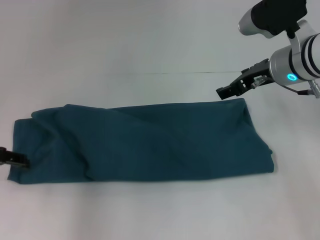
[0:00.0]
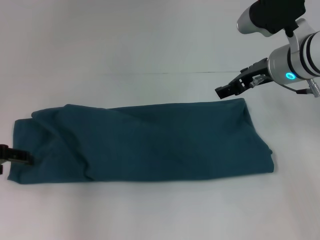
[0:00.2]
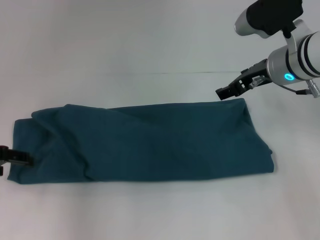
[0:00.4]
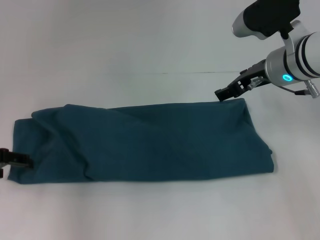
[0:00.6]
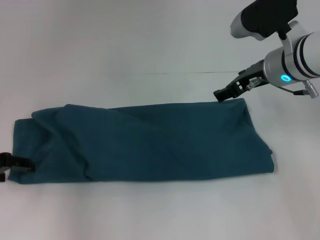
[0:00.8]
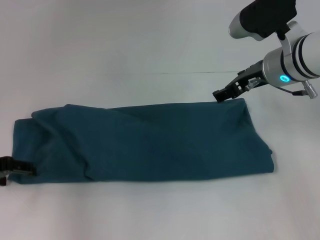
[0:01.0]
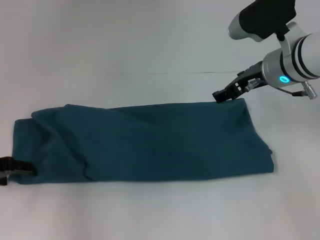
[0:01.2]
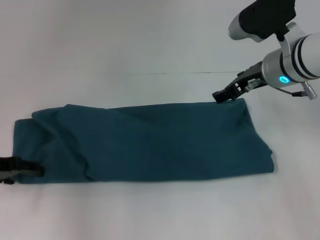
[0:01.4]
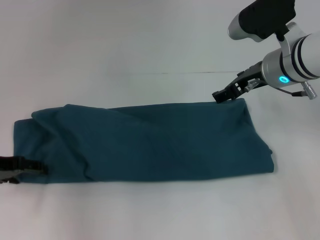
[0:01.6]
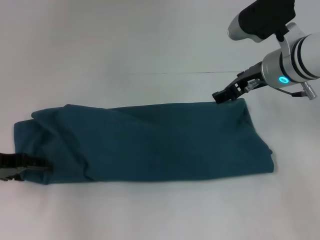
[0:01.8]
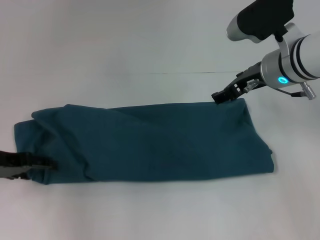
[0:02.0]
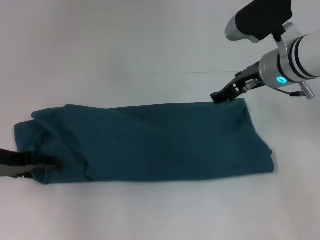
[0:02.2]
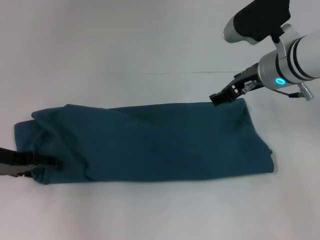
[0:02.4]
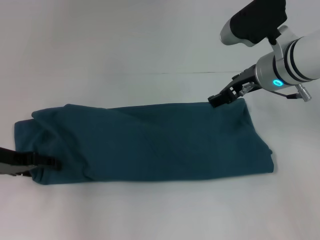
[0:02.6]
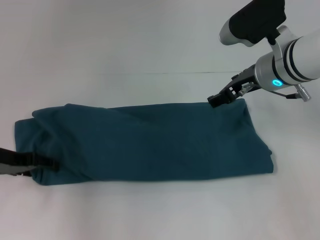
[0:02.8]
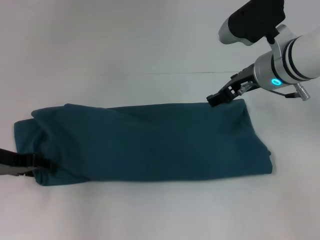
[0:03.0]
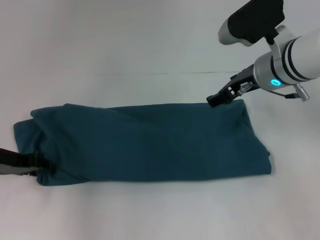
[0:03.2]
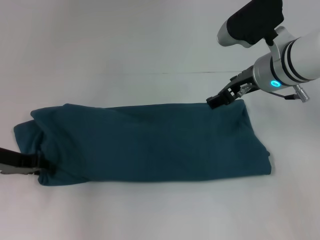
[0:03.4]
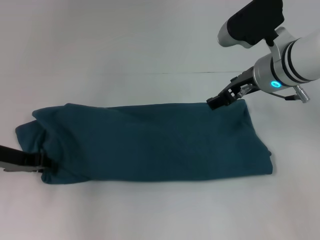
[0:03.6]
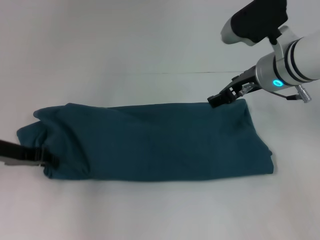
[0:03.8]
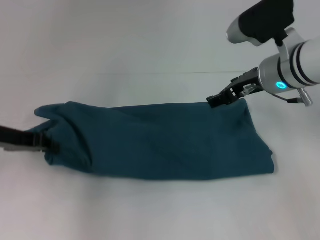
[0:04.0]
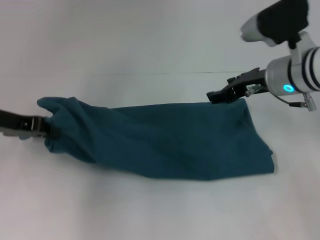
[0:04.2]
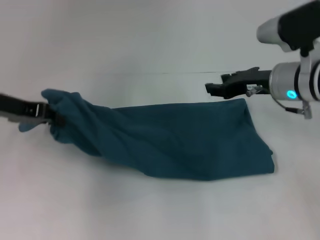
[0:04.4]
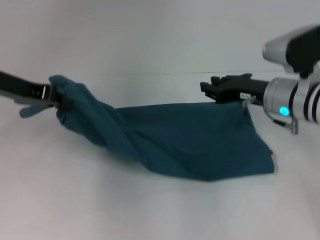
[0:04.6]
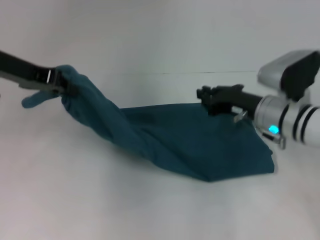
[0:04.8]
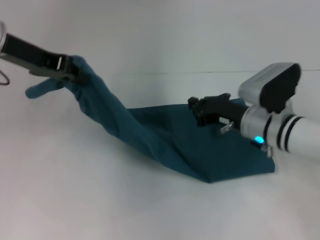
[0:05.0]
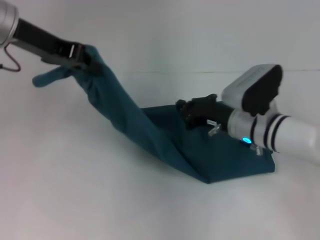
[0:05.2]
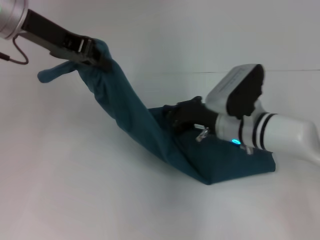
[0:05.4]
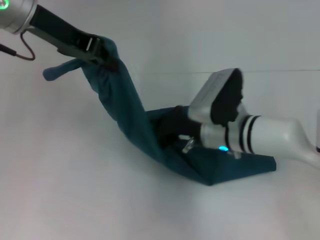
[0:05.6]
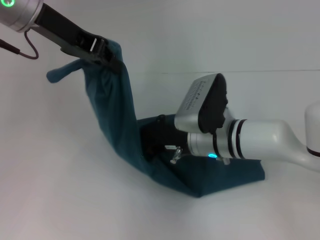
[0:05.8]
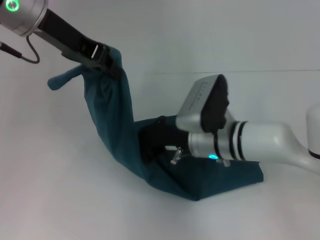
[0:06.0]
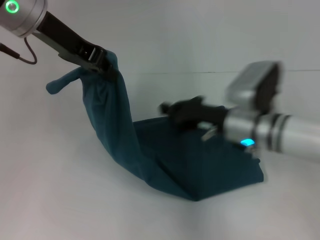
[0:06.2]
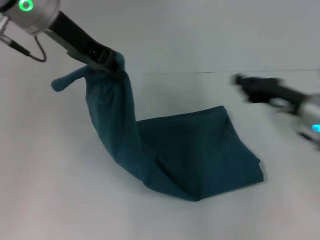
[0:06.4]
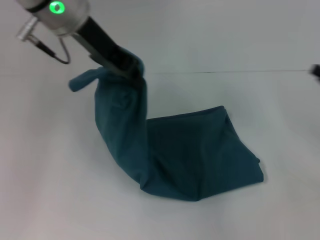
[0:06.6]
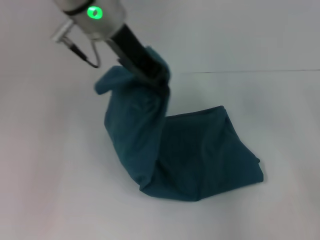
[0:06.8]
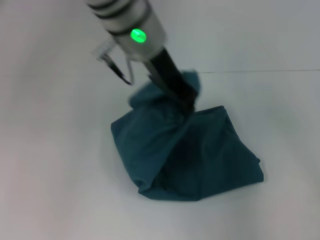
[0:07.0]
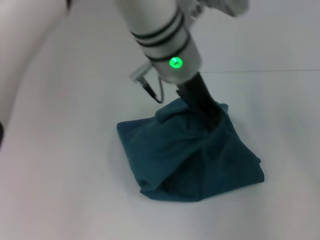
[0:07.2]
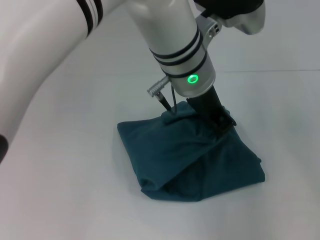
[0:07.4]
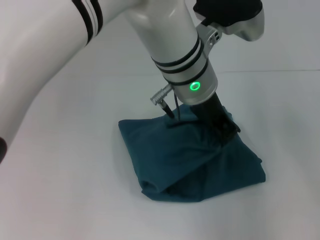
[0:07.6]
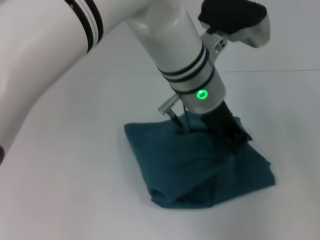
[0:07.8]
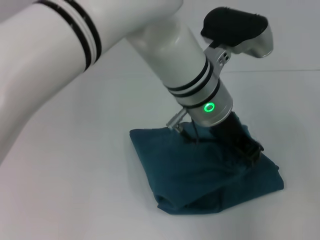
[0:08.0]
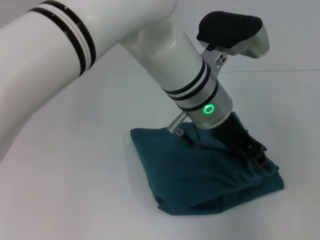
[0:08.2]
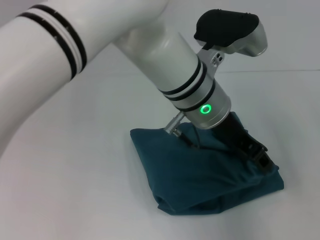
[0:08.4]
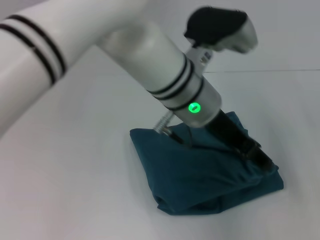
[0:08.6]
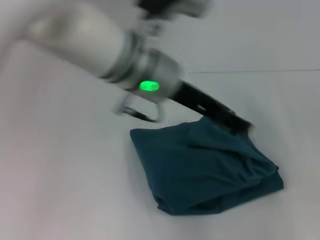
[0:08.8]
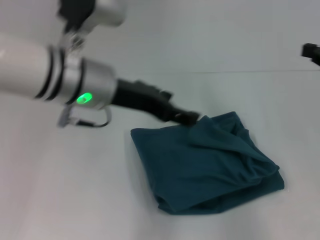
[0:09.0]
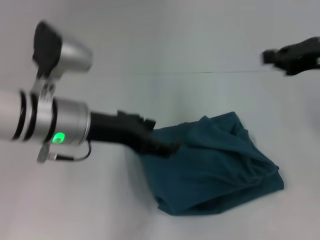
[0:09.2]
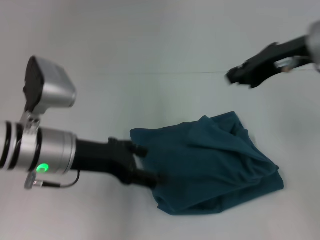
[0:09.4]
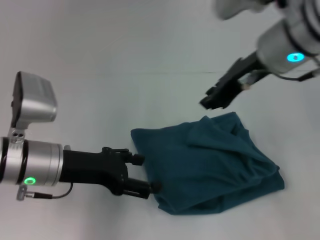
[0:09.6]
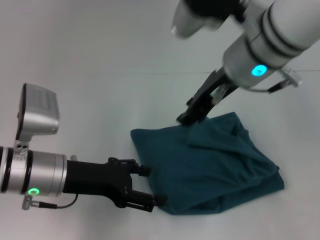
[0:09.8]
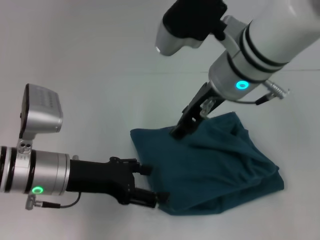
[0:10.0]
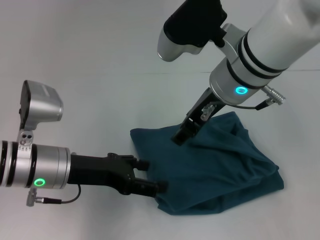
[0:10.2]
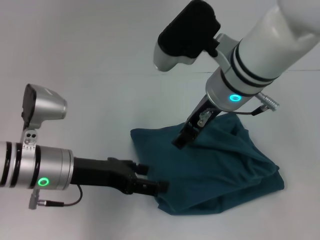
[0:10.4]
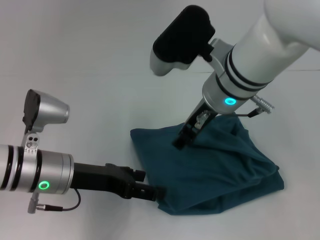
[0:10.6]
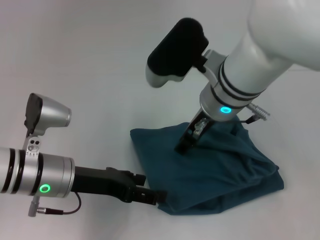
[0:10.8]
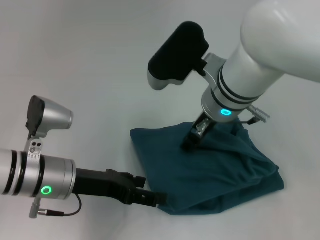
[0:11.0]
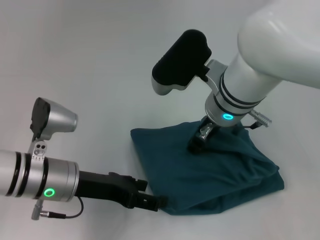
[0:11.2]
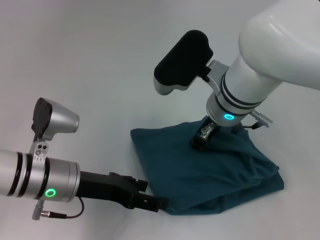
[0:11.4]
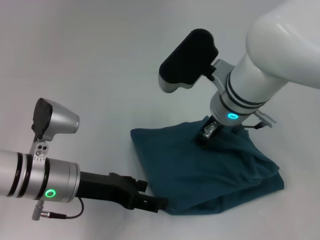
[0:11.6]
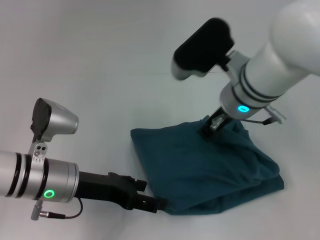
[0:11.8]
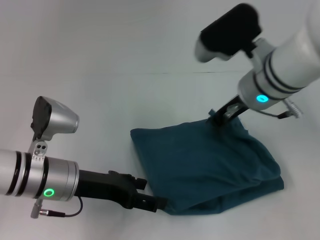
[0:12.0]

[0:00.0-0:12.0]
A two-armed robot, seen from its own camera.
Step, 0:00.0 to 0:06.0: Press the middle of the clothes with your right hand.
Step, 0:06.2 to 0:08.4: Fold the clothes to the left.
0:00.0 to 0:03.0: The grippers make only small movements.
0:03.0 to 0:04.4: The left gripper goes some 10 cm upward, and closes.
0:04.4 to 0:06.0: The left gripper moves upward and to the right, approximately 15 cm, while the right gripper shifts roughly 15 cm to the left and downward, and closes.
0:06.0 to 0:07.6: The right gripper heads to the right, covering approximately 35 cm, while the left gripper goes approximately 20 cm to the right.
0:07.6 to 0:09.0: The left gripper moves to the left, approximately 15 cm, and opens its fingers, while the right gripper shifts approximately 10 cm to the left and upward.
0:09.0 to 0:10.4: The right gripper goes approximately 25 cm to the left, and opens up. Meanwhile the left gripper travels downward and to the left by some 15 cm.
0:10.4 to 0:12.0: The right gripper changes place by about 5 cm, and closes its fingers.

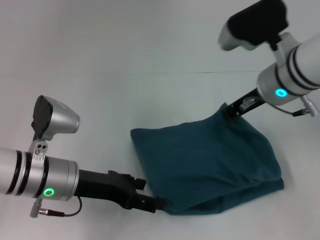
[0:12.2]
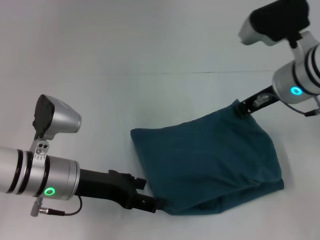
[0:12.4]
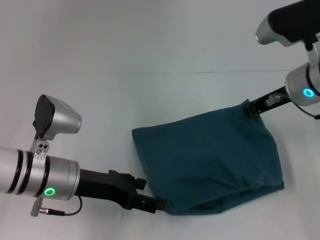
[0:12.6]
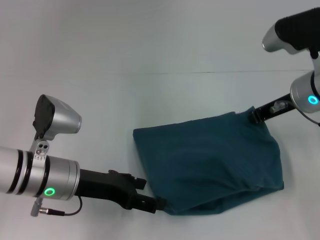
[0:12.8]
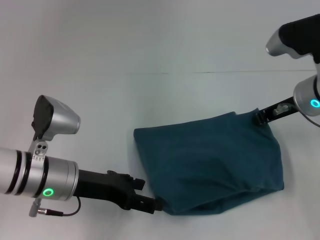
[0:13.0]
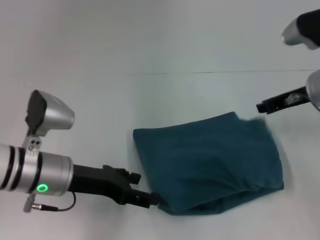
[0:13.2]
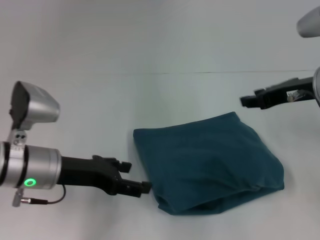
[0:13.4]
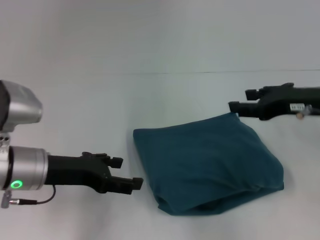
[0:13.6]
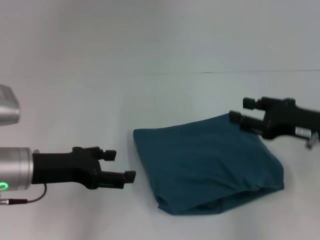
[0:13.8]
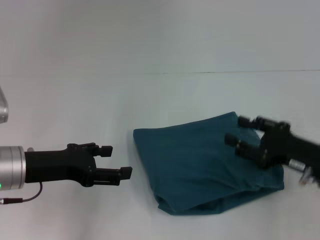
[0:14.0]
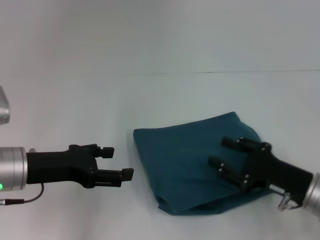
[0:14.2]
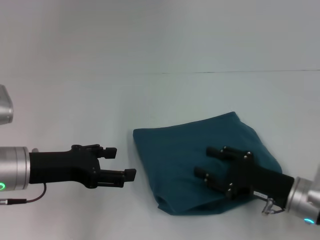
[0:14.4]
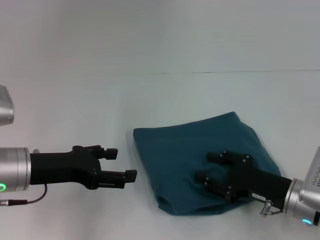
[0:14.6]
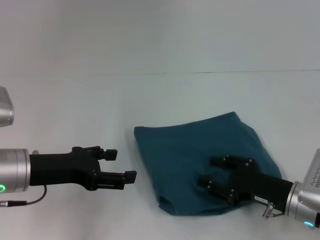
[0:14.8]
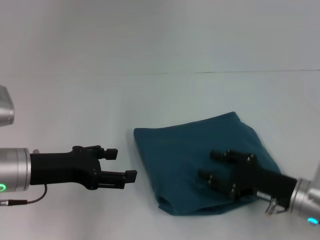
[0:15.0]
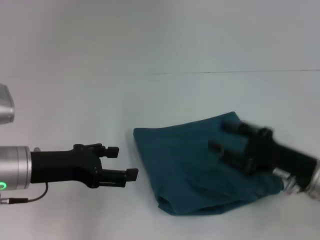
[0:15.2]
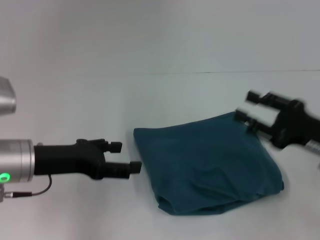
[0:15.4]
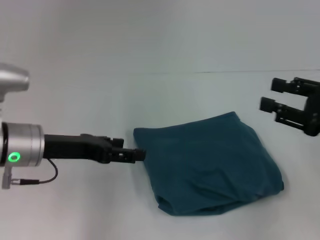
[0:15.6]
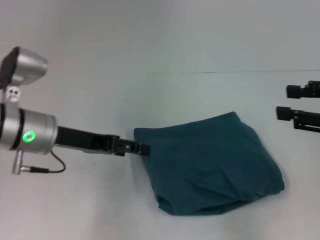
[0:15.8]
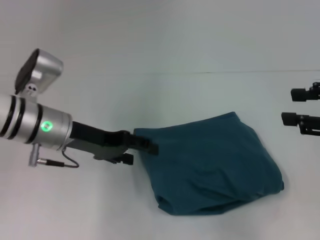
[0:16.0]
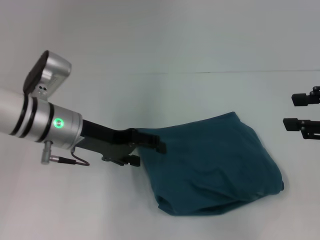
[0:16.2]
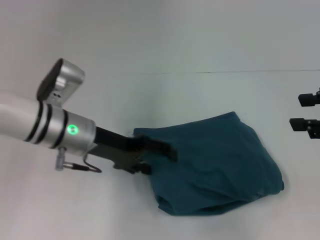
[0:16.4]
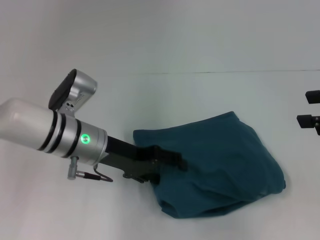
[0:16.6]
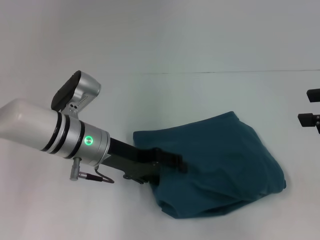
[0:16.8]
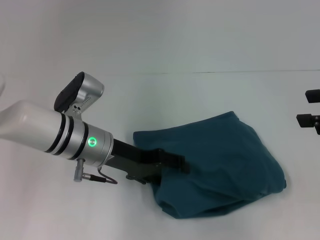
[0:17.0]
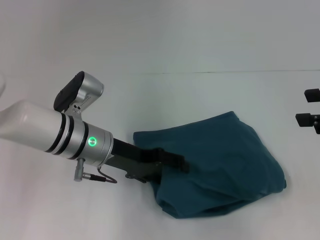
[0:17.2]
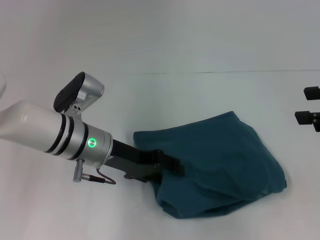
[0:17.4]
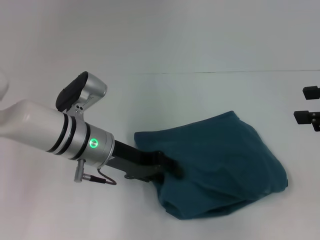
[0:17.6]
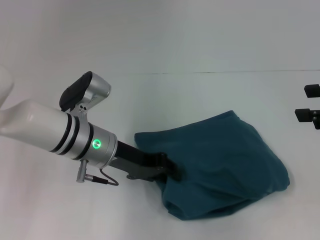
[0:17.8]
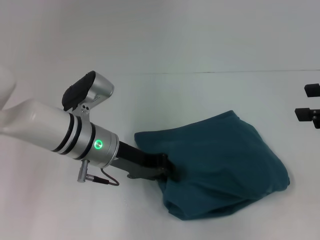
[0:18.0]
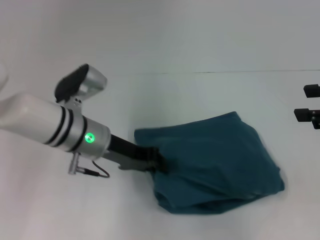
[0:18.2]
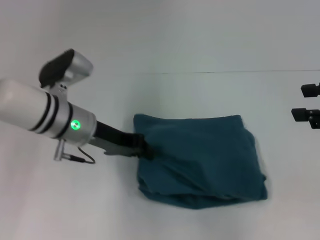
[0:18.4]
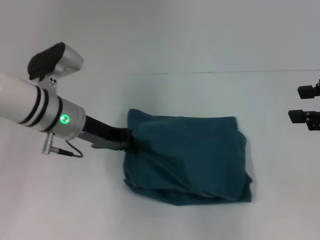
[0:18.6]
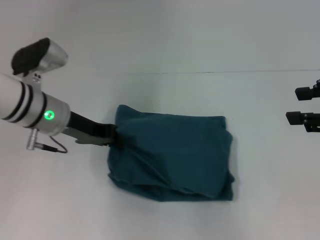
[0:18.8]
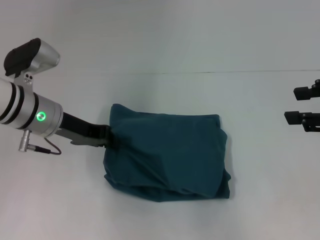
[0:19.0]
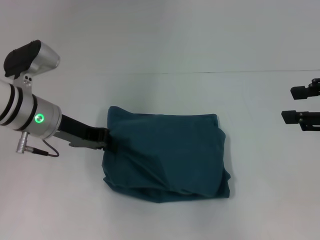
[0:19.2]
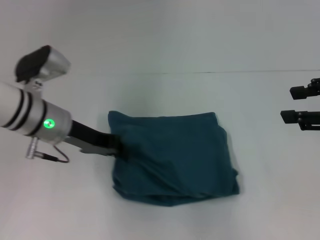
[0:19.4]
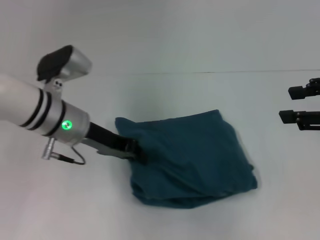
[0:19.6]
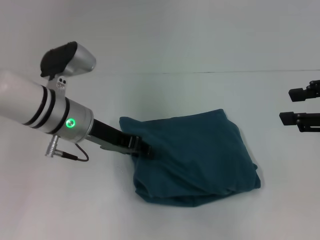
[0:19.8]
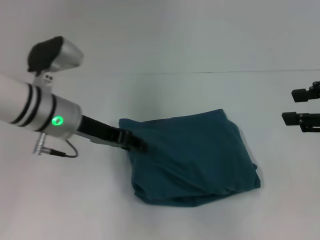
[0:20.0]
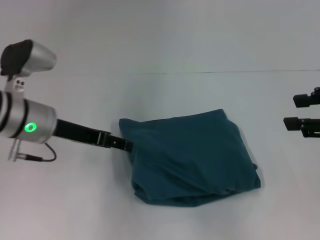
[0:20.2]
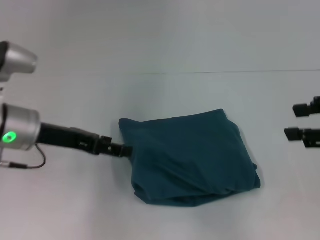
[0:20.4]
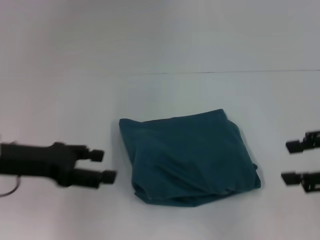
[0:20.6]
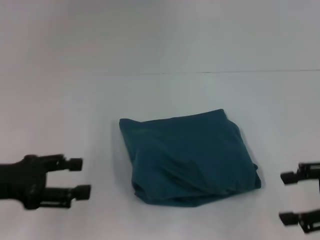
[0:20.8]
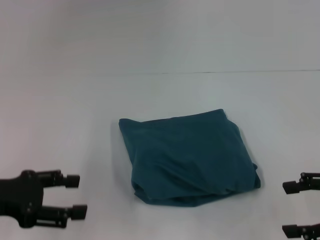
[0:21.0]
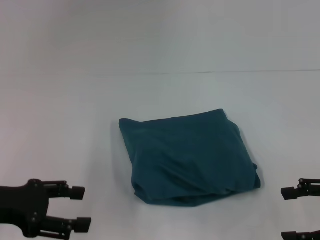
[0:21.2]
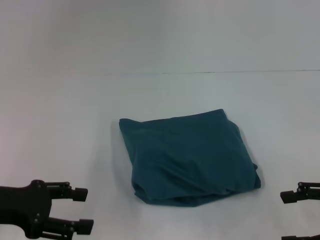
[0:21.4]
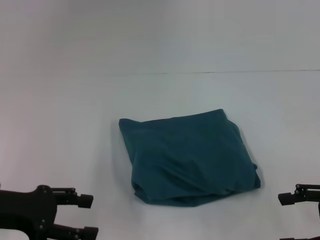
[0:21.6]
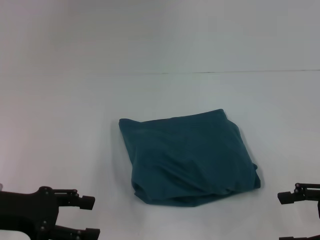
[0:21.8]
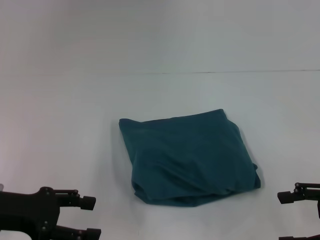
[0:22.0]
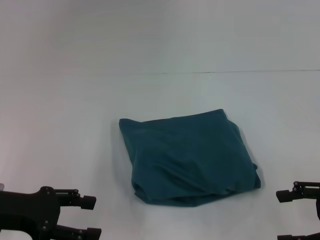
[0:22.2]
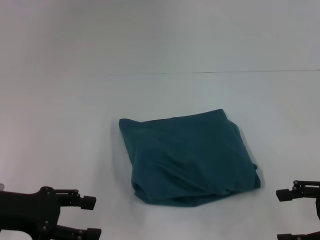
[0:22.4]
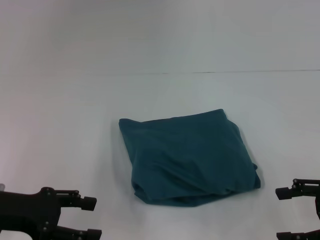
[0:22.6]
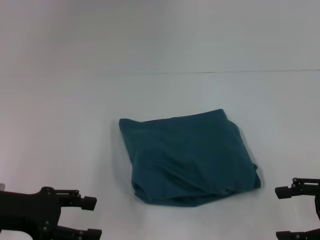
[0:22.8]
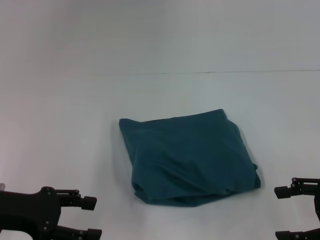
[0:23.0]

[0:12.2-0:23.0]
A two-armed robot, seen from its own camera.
0:12.2 to 0:13.8: The left gripper ends up some 5 cm from where it was. Meanwhile the right gripper is displaced to the right, backward and downward by some 15 cm, and opens.
0:13.8 to 0:15.2: The right gripper is displaced downward by approximately 10 cm.
0:15.2 to 0:16.8: The right gripper moves upward and to the right, approximately 20 cm, while the left gripper heads to the right and forward, covering about 10 cm.
0:16.8 to 0:18.4: The left gripper closes its fingers.
0:18.4 to 0:20.0: The grippers make only small movements.
0:20.0 to 0:21.4: The left gripper travels backward and to the left by roughly 15 cm, and opens, while the right gripper heads downward and backward, covering some 10 cm, and opens up.
0:21.4 to 0:23.0: Both grippers stay about where they are.
